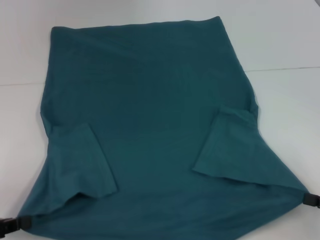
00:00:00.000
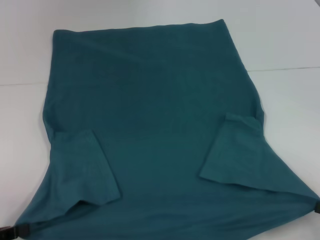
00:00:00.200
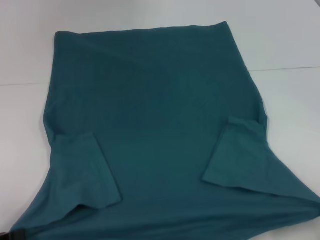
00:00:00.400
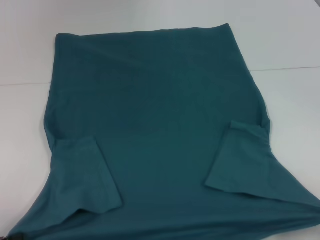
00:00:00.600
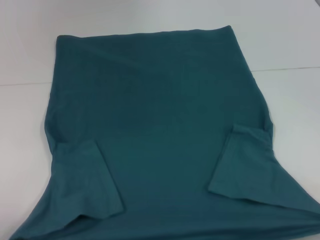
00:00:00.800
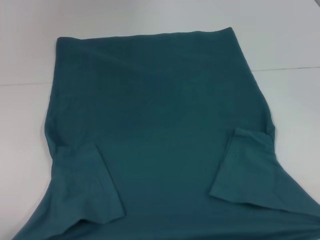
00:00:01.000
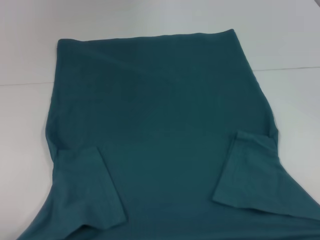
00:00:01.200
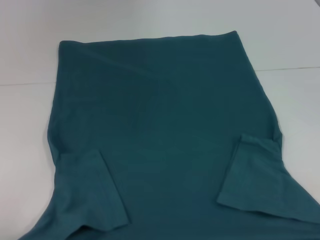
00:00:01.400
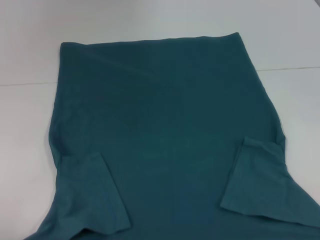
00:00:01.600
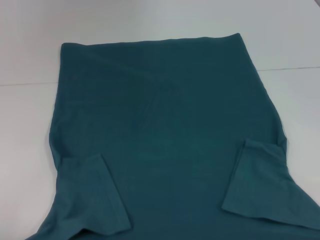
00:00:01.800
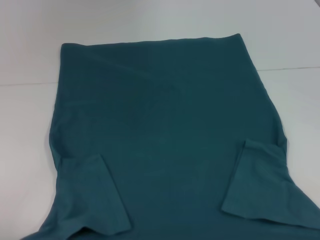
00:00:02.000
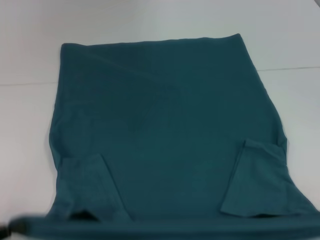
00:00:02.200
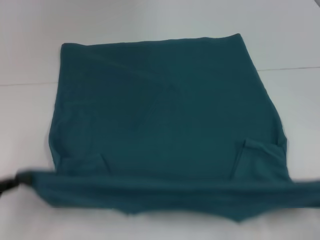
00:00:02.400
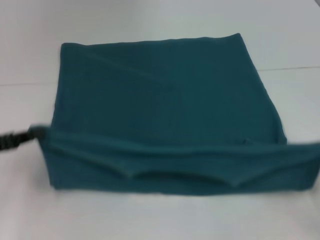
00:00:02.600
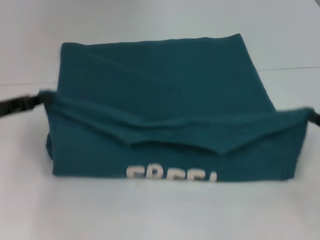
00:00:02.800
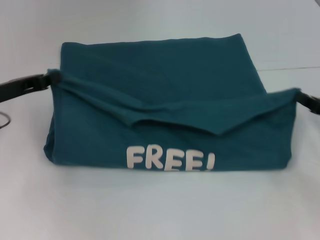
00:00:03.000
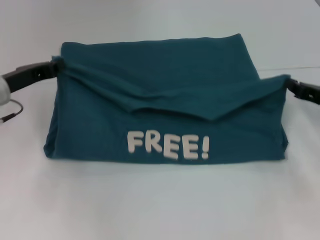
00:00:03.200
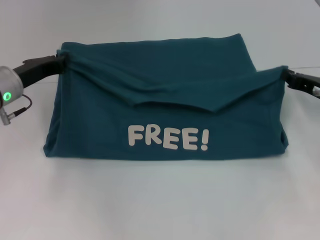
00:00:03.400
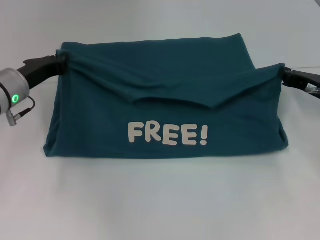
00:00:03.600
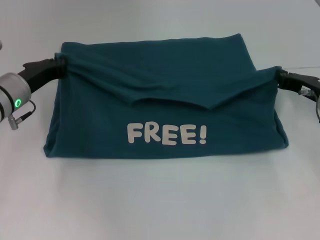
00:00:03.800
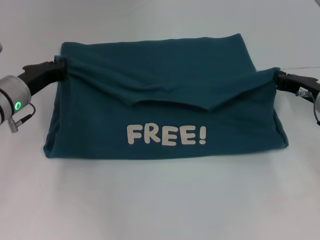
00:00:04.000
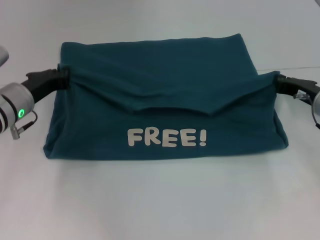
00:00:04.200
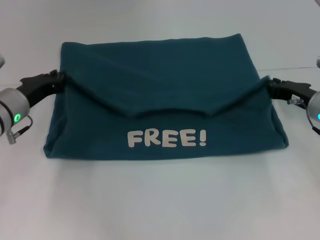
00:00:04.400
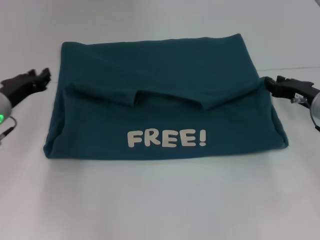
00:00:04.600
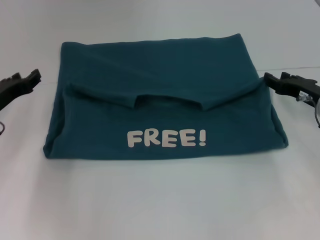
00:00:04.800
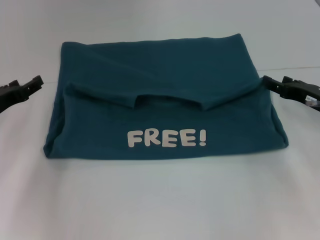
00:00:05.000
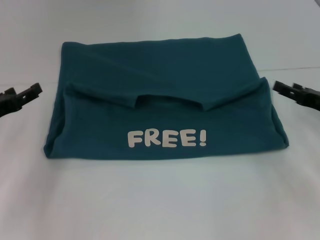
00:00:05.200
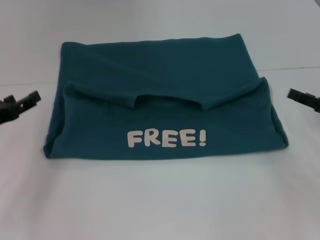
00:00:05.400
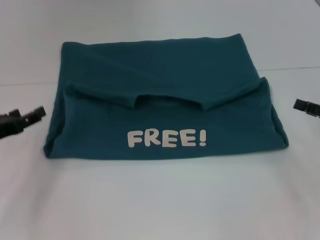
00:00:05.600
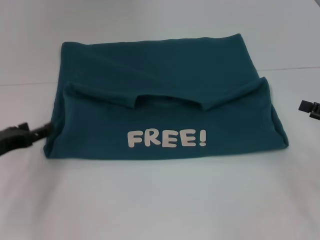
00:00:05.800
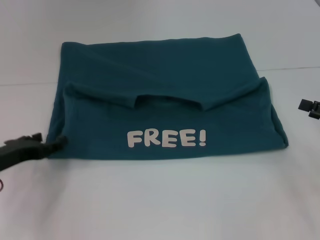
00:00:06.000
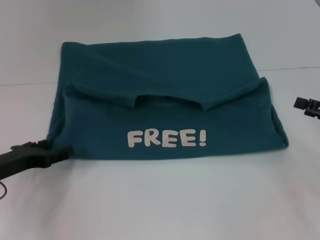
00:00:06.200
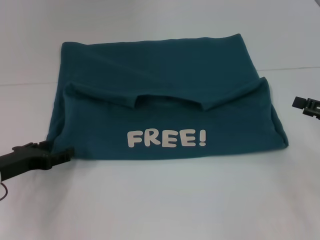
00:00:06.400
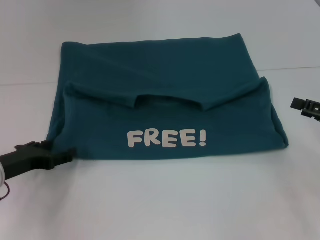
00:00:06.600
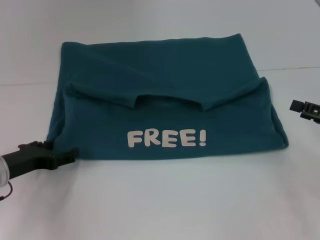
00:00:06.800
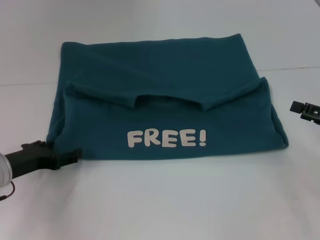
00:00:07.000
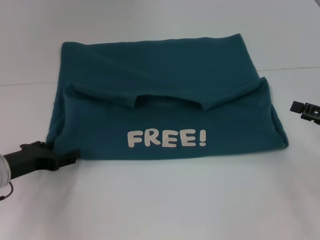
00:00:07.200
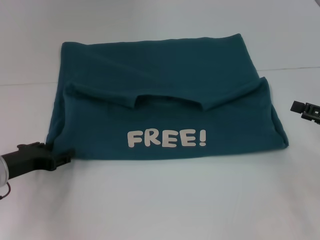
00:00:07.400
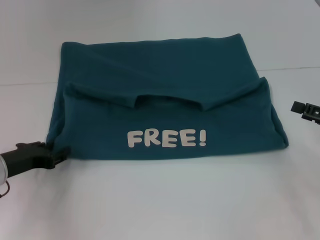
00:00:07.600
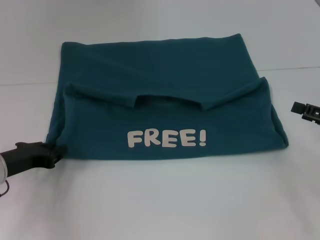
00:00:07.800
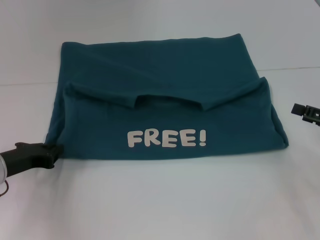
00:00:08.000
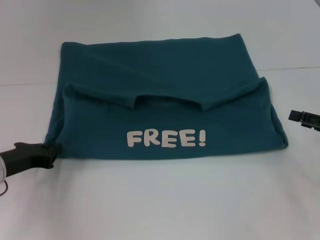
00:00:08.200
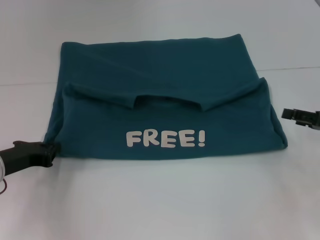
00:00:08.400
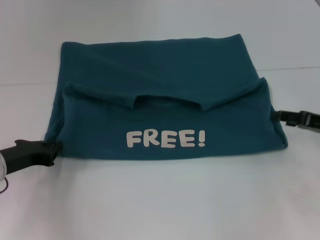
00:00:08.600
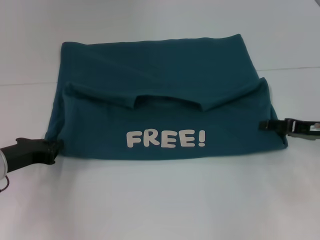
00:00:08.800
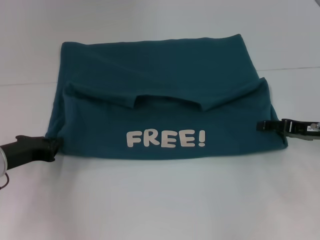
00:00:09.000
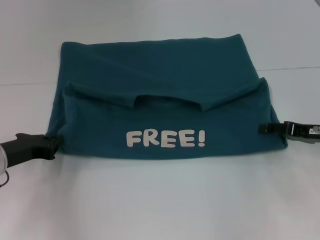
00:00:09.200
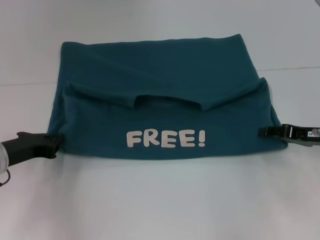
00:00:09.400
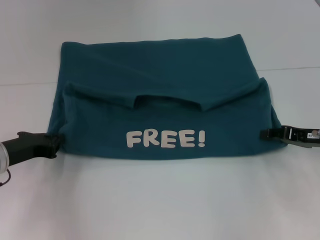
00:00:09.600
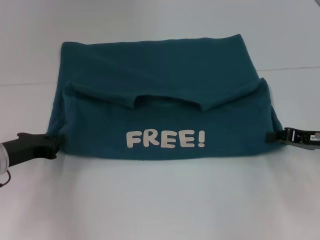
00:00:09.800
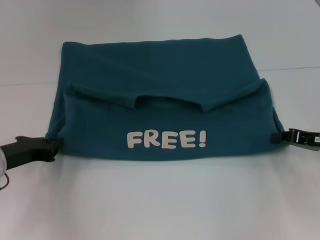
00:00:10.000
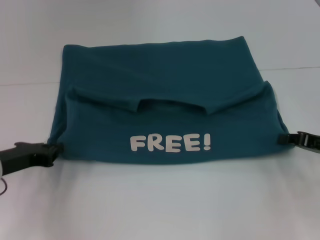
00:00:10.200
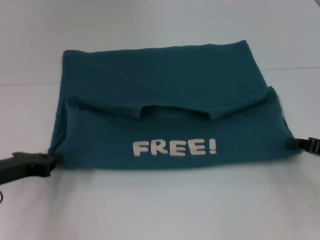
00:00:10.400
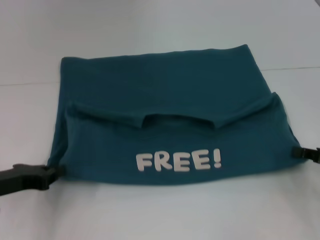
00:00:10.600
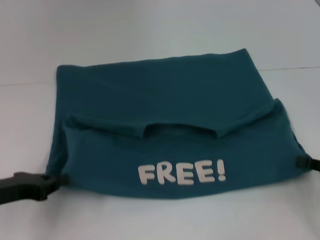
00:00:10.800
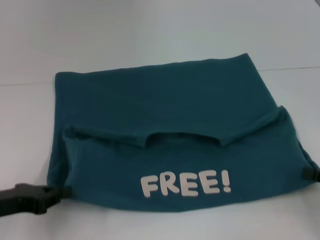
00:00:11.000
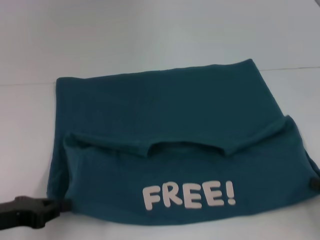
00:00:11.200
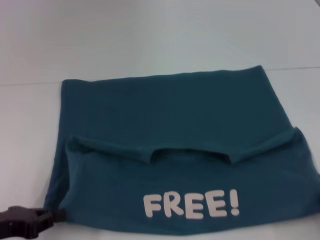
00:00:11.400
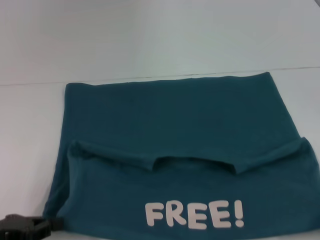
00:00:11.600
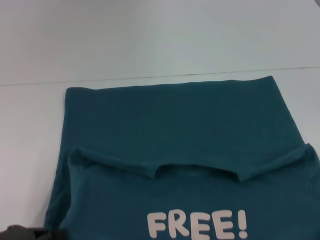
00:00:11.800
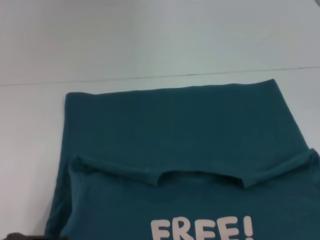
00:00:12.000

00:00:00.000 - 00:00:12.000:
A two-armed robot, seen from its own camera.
Step, 00:00:00.000 - 00:00:04.400: Fold the clothes to the left.
Step, 00:00:00.000 - 00:00:04.400: Fold the clothes to the right.
00:00:00.000 - 00:00:01.600: The right gripper is displaced backward by roughly 10 cm; the left gripper is displaced backward by approximately 5 cm.
00:00:01.600 - 00:00:03.000: The grippers both shift forward by roughly 25 cm.
00:00:03.000 - 00:00:04.400: The right gripper heads forward and to the left, covering approximately 10 cm. The left gripper shifts by about 5 cm.
00:00:04.400 - 00:00:06.000: The left gripper goes some 10 cm backward and to the left, and opens, while the right gripper moves backward and to the right, roughly 15 cm, and opens up.
00:00:06.000 - 00:00:07.600: The grippers stay close to where they were, moving slightly.
00:00:07.600 - 00:00:09.000: The left gripper closes its fingers. The right gripper shifts approximately 5 cm forward.
00:00:09.000 - 00:00:10.400: The right gripper heads backward, covering roughly 5 cm, and closes.
00:00:10.400 - 00:00:12.000: The left gripper goes some 10 cm backward, while the right gripper heads backward, covering some 20 cm.

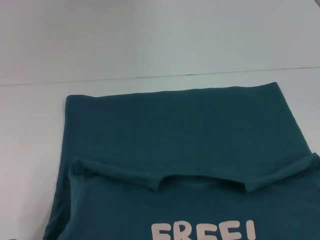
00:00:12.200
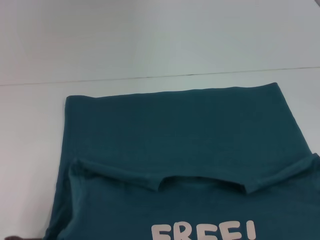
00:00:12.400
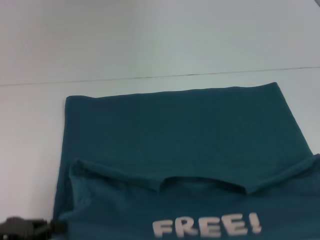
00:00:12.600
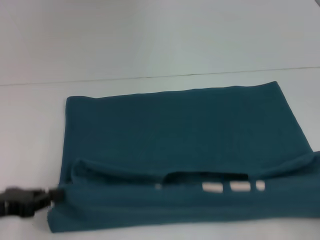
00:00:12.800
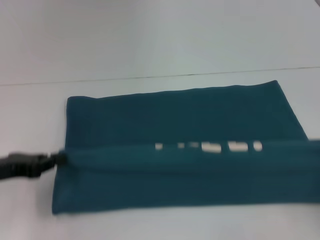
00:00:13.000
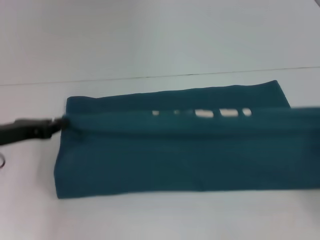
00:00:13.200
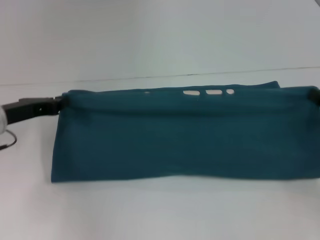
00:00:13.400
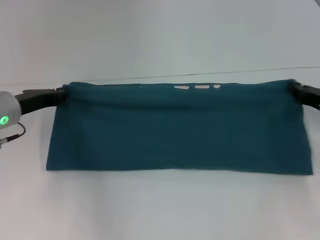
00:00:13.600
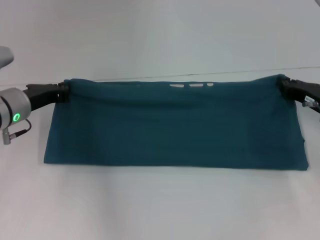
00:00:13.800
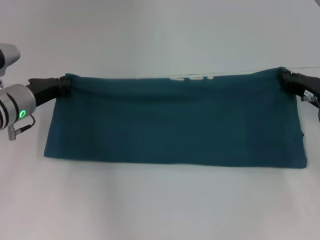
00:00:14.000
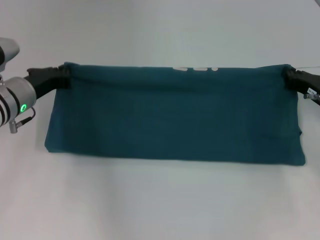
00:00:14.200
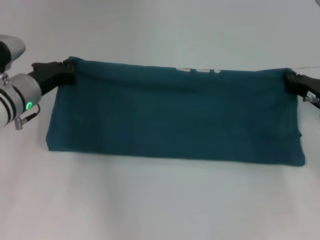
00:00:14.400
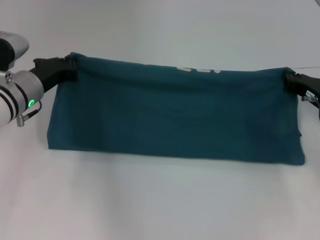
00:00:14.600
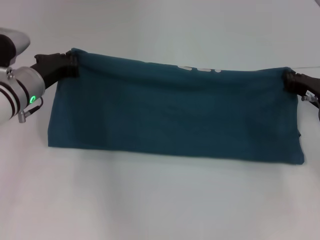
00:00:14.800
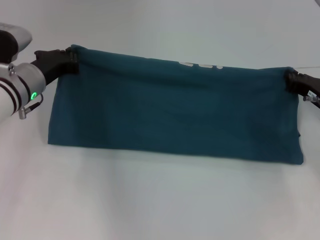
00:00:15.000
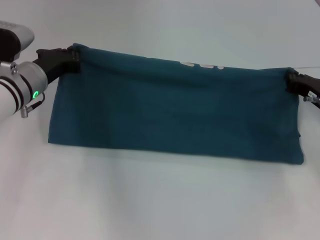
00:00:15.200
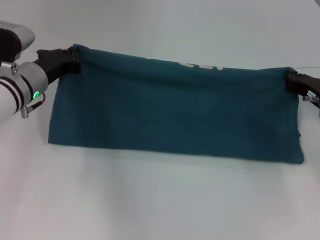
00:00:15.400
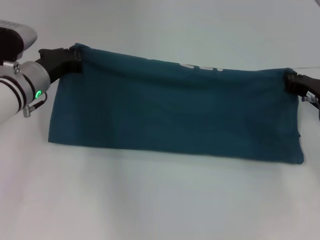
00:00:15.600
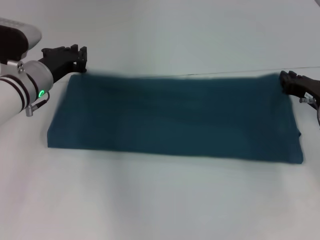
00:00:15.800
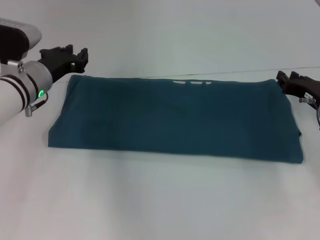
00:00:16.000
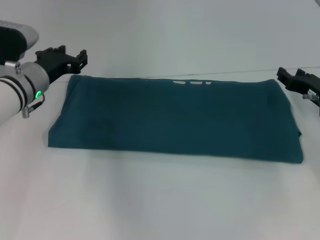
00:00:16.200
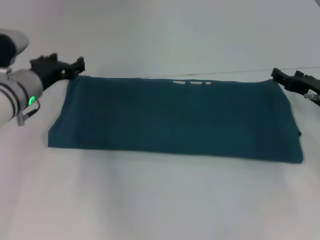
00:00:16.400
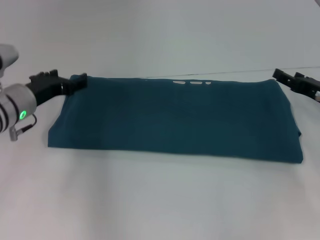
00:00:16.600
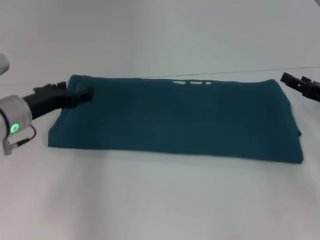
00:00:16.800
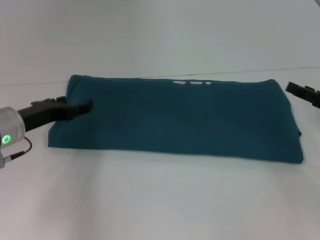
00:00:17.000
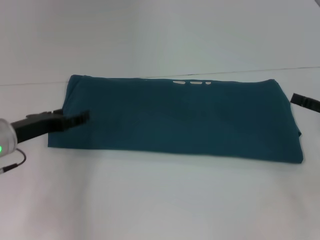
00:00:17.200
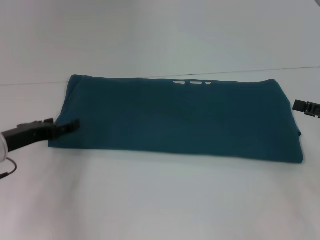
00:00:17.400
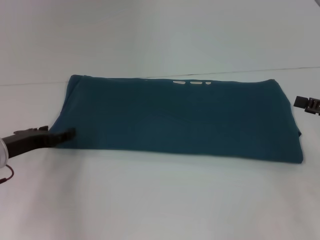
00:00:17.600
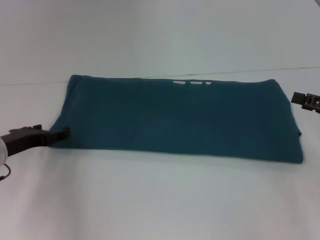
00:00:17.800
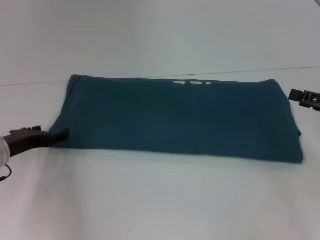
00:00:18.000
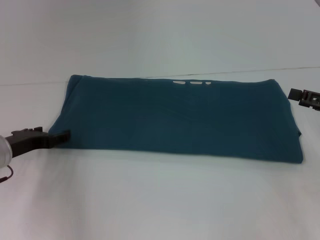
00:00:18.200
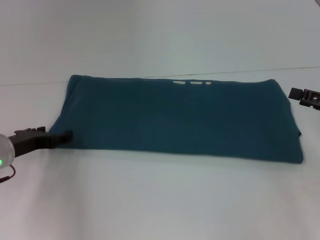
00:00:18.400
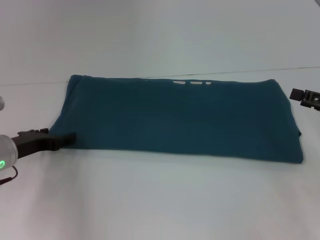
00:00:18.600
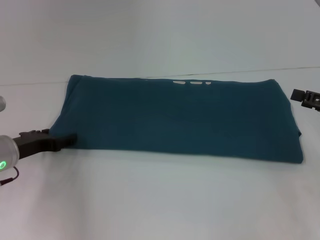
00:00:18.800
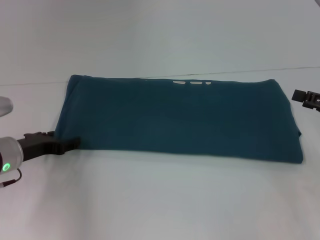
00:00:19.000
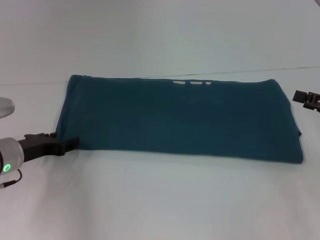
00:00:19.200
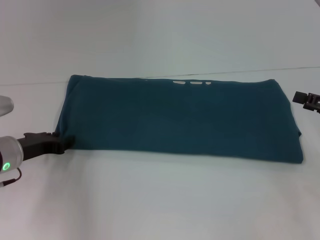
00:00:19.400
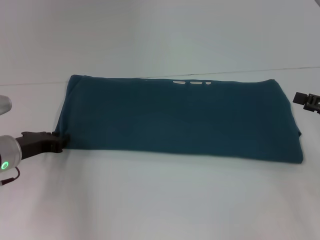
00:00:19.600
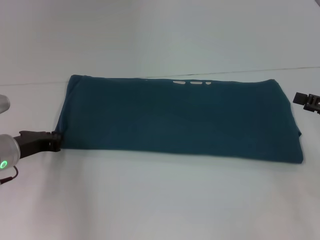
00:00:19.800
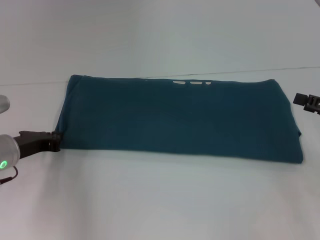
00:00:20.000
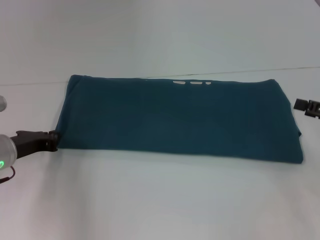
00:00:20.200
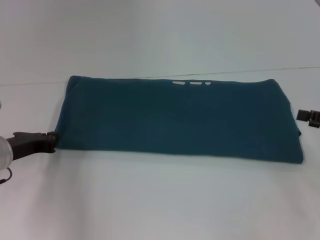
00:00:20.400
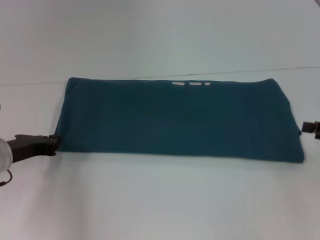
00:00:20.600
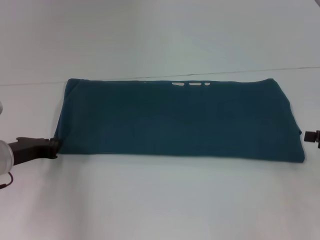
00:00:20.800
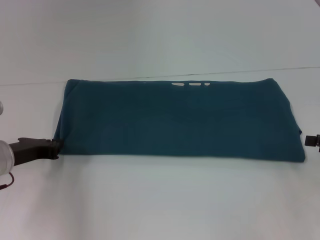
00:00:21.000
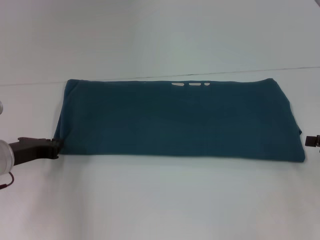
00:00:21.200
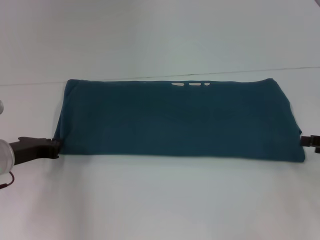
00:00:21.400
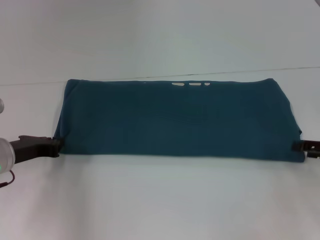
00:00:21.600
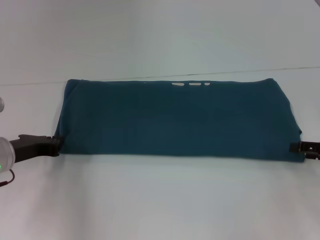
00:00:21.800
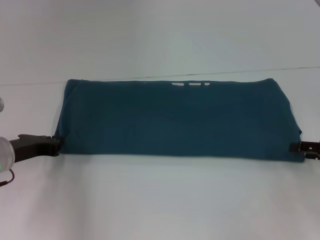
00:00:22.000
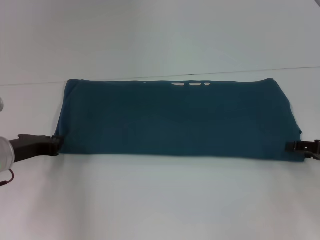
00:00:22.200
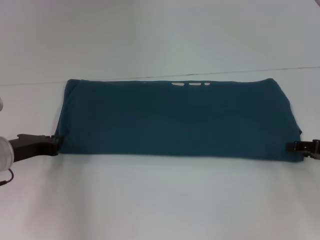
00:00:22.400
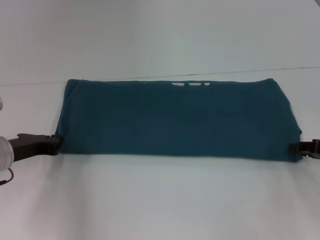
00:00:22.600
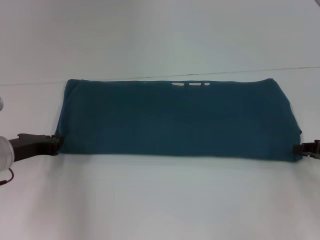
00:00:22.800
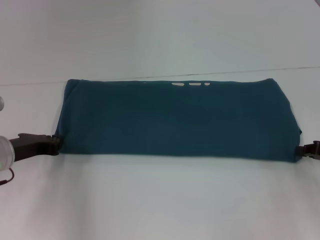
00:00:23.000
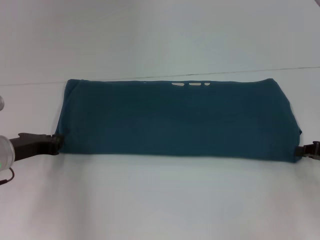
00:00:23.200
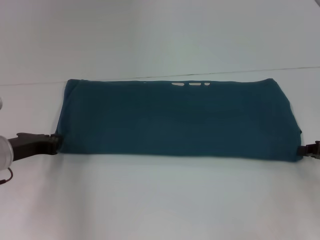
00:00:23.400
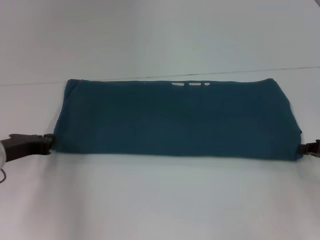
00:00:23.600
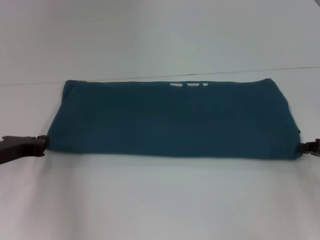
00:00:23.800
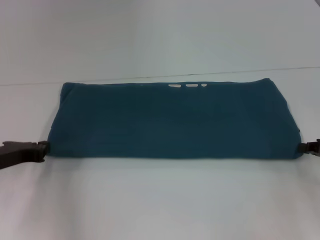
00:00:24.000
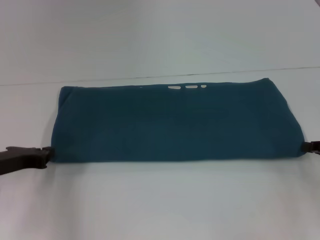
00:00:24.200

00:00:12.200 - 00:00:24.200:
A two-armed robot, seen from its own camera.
Step, 00:00:12.200 - 00:00:15.800: Fold the clothes to the right.
00:00:12.200 - 00:00:13.800: The grippers both shift forward by some 25 cm.
00:00:15.200 - 00:00:16.600: The right gripper opens up; the left gripper opens up.
00:00:16.600 - 00:00:18.200: The grippers both shift backward by roughly 5 cm.
00:00:18.200 - 00:00:19.800: The left gripper closes.
00:00:19.800 - 00:00:21.200: The left gripper closes.
00:00:21.200 - 00:00:22.600: The grippers move only a little.
00:00:22.600 - 00:00:24.200: The right gripper closes.
